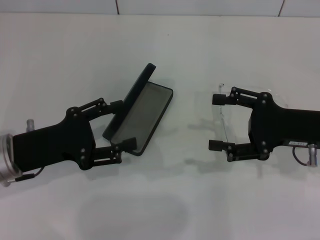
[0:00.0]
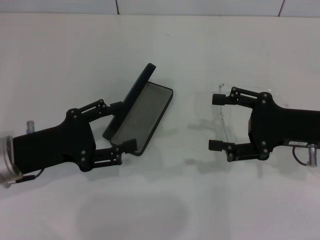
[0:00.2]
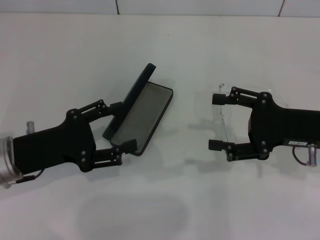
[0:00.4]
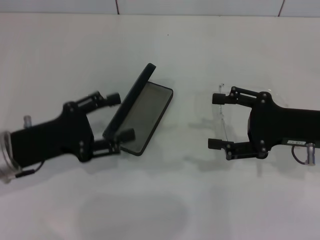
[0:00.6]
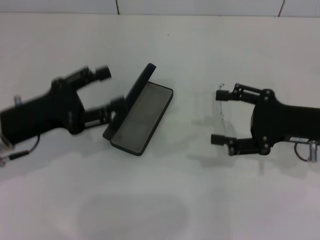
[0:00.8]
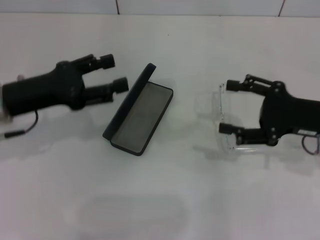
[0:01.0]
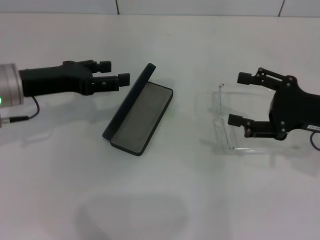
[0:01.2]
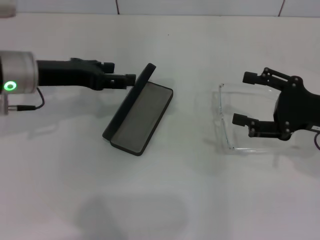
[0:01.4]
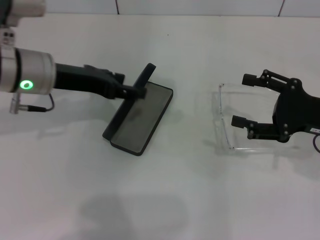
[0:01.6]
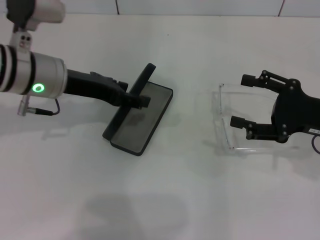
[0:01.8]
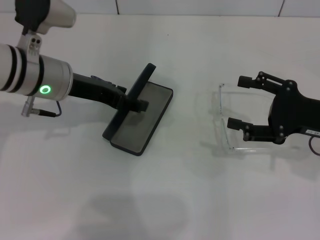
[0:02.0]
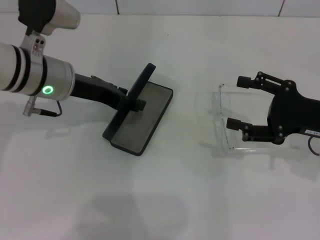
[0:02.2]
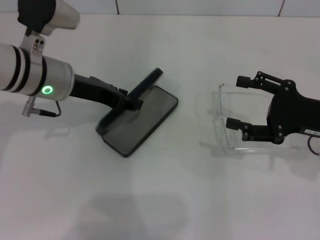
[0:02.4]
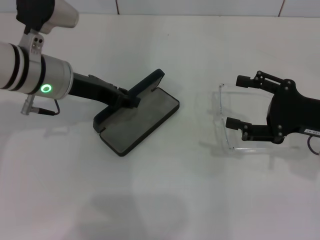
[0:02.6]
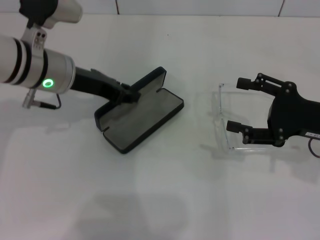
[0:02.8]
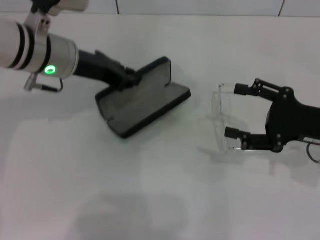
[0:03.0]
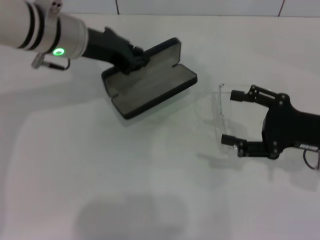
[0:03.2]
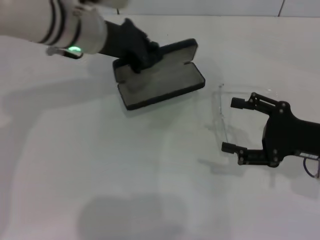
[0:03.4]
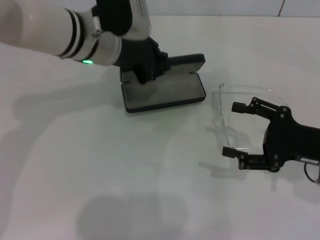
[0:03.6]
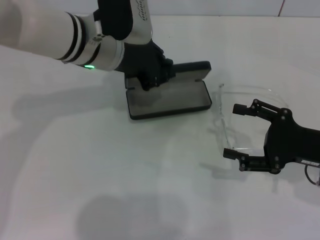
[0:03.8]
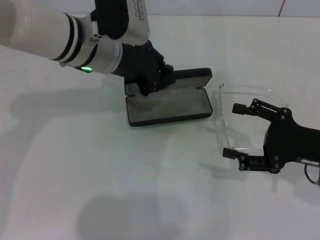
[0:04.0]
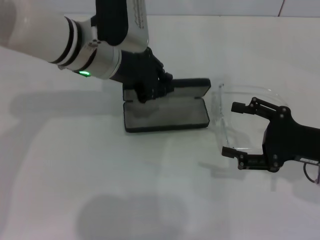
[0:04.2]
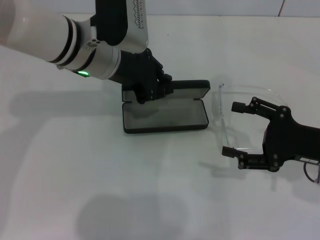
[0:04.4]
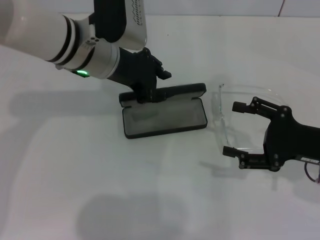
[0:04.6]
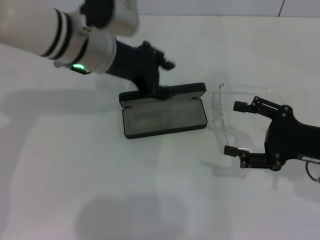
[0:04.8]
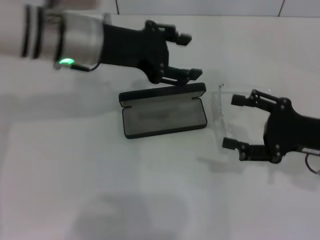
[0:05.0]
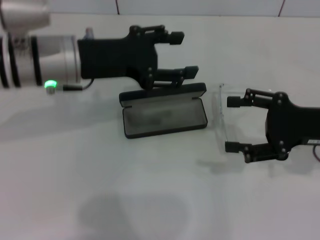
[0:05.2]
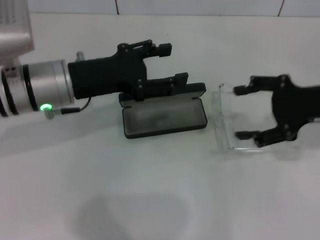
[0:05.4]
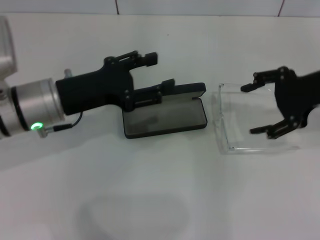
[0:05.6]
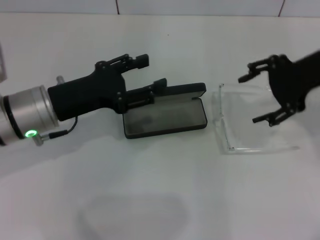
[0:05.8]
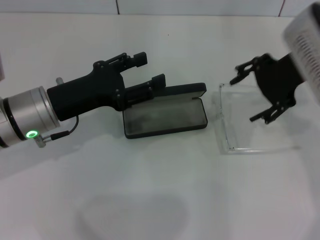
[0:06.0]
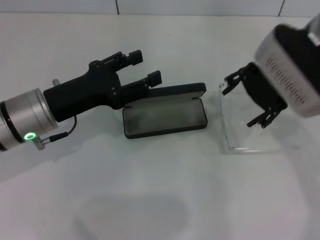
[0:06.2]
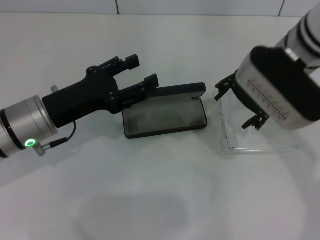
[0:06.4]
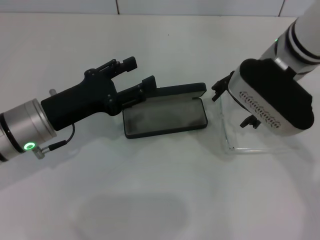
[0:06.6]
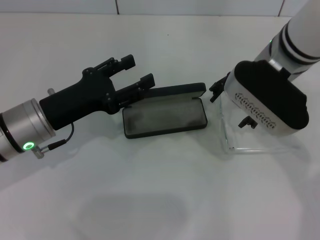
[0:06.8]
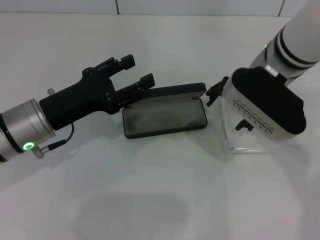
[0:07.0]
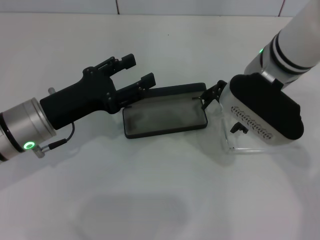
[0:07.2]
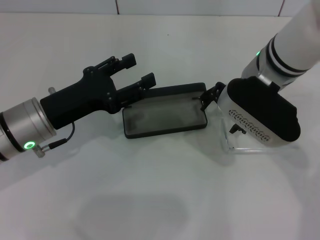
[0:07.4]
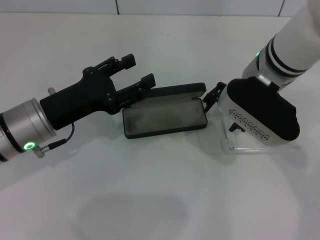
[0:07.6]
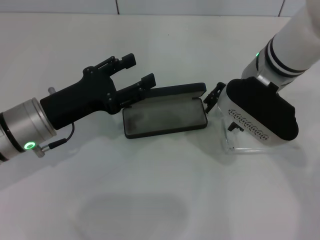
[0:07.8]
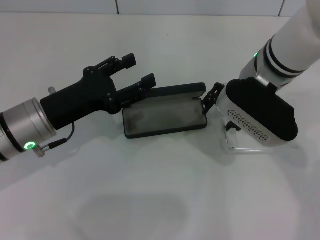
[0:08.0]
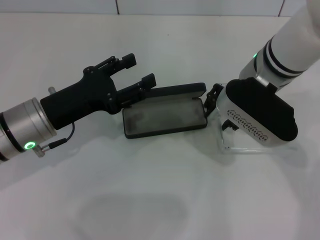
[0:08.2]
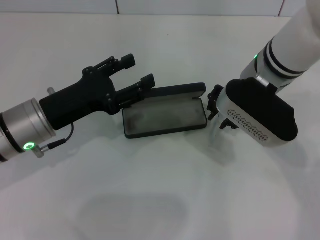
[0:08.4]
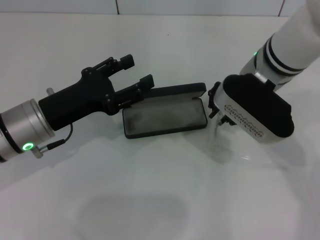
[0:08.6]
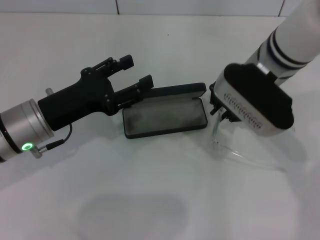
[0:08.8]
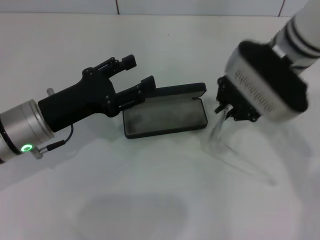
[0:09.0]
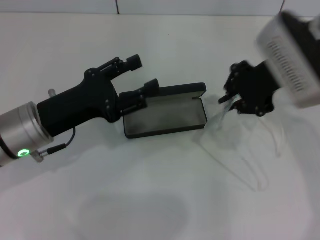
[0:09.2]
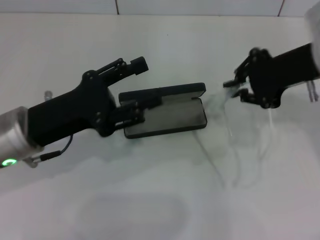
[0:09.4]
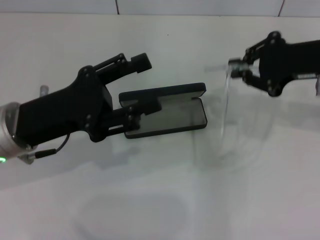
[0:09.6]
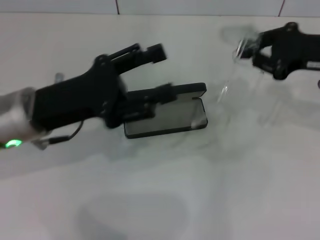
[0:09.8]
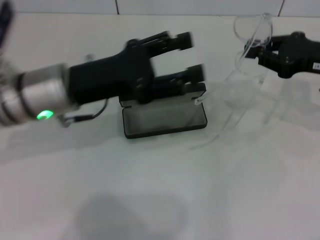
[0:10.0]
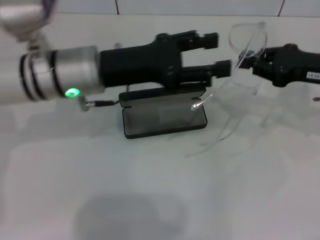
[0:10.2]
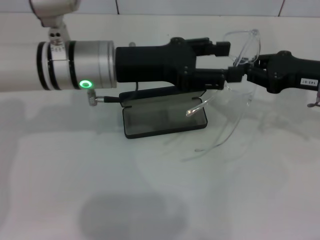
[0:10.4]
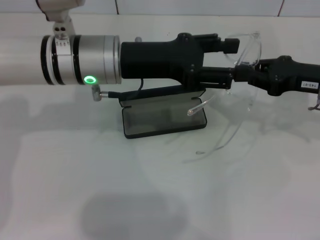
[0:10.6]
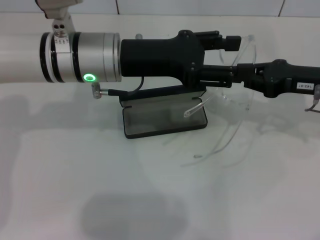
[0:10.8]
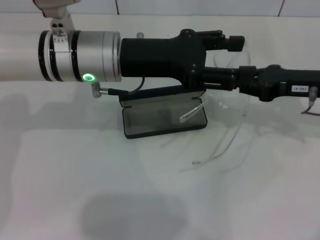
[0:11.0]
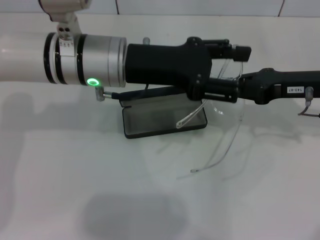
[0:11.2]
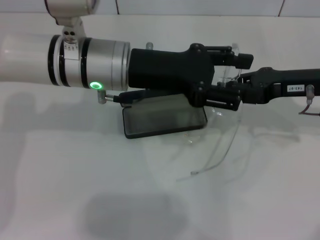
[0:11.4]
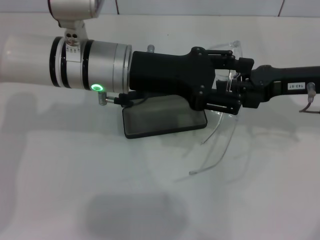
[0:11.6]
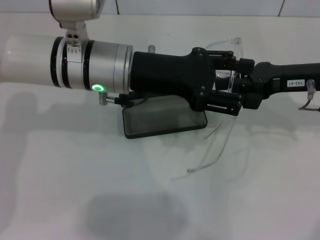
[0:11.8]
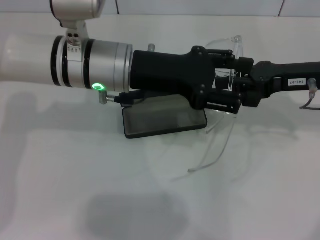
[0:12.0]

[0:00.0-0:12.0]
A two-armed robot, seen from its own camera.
Step, 0:00.0 to 0:02.8: Grab the glasses case with your left hand.
Step, 0:03.0 to 0:04.6: Place the glasses case in the center of the table with your left hand.
Step, 0:04.8 to 0:08.6: Grab the eyeglass frame with your right hand.
0:00.0 to 0:01.6: The left gripper shifts approximately 15 cm forward and upward.
0:01.6 to 0:03.0: The left gripper closes up.
0:03.0 to 0:04.4: The left gripper is displaced to the right by some 5 cm.
0:04.4 to 0:06.0: The right gripper goes approximately 20 cm upward, forward and to the left. The left gripper heads to the left, backward and downward, covering about 15 cm, and opens.
0:06.0 to 0:07.6: The right gripper goes about 10 cm to the left and downward.
0:07.6 to 0:09.0: The right gripper closes up.
0:09.0 to 0:10.4: The right gripper shifts approximately 15 cm to the right. The left gripper travels to the right, forward and upward by some 15 cm.
0:10.4 to 0:12.0: There are only small adjustments of the grippers.

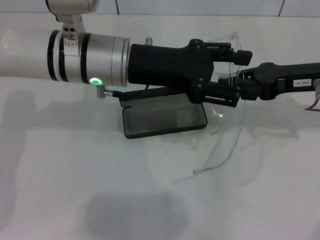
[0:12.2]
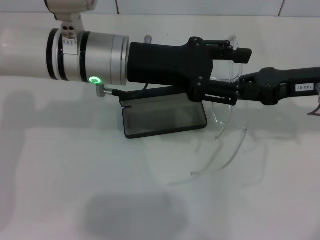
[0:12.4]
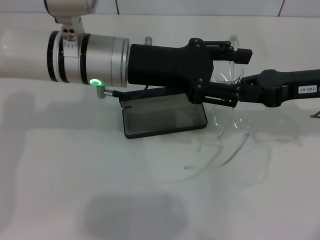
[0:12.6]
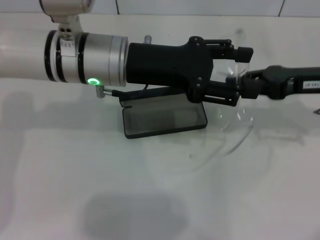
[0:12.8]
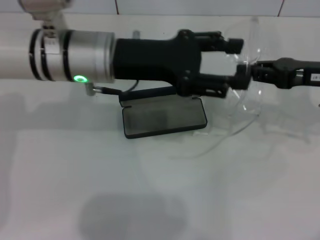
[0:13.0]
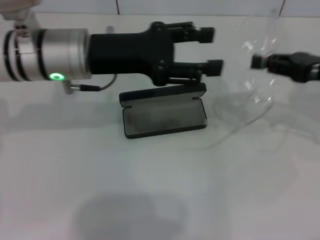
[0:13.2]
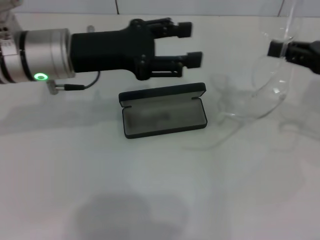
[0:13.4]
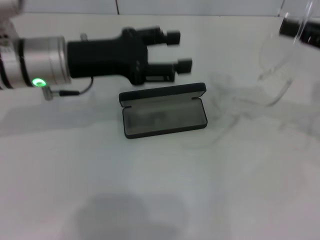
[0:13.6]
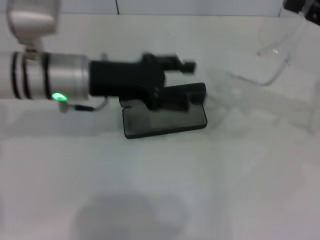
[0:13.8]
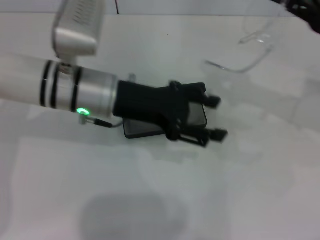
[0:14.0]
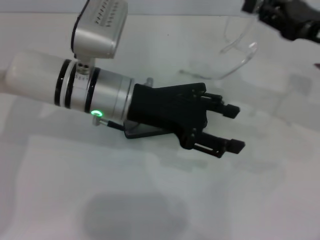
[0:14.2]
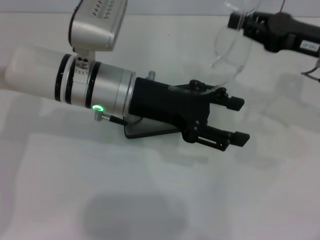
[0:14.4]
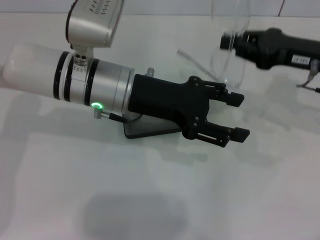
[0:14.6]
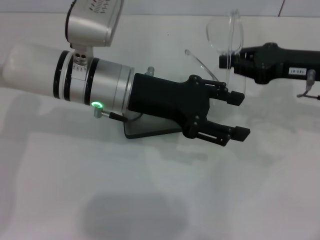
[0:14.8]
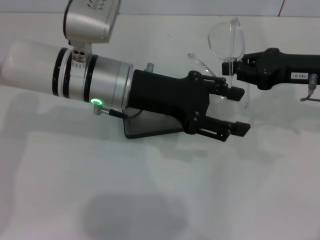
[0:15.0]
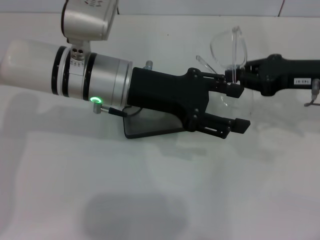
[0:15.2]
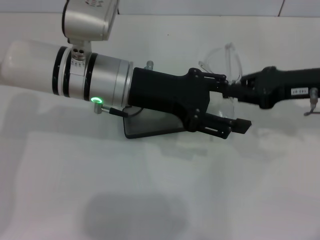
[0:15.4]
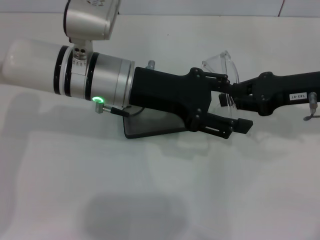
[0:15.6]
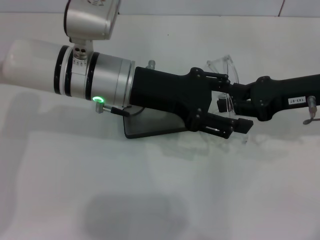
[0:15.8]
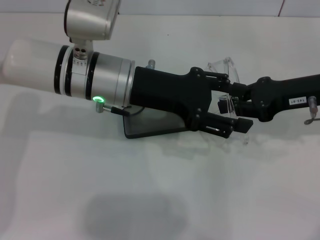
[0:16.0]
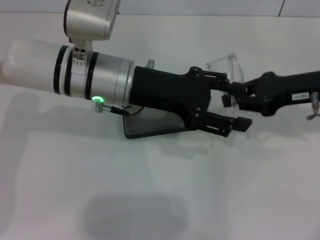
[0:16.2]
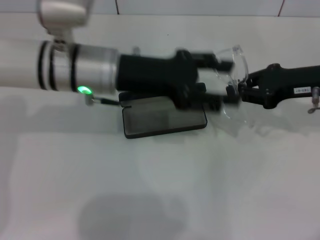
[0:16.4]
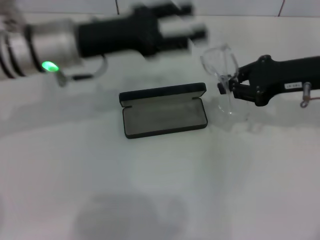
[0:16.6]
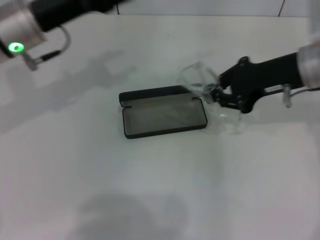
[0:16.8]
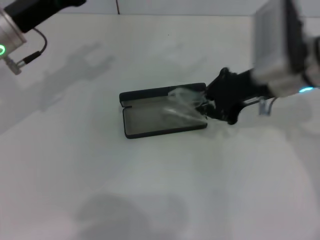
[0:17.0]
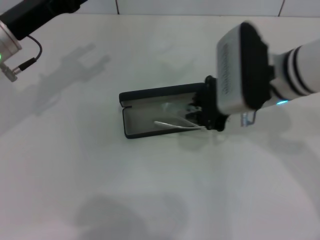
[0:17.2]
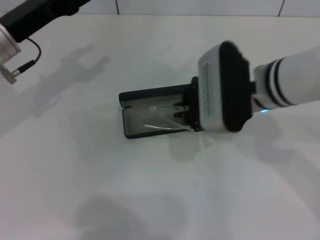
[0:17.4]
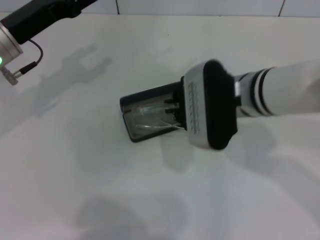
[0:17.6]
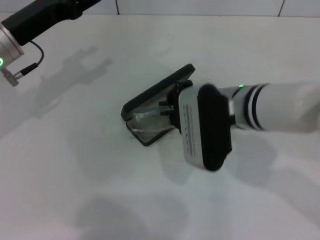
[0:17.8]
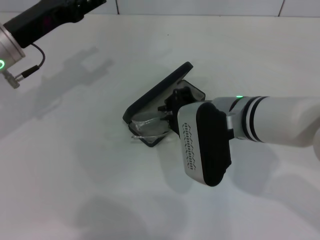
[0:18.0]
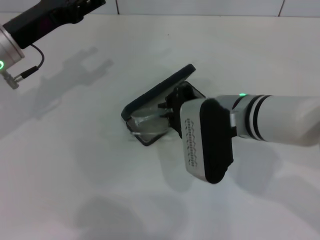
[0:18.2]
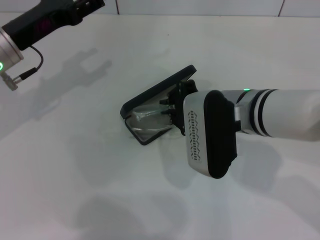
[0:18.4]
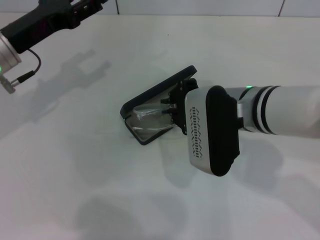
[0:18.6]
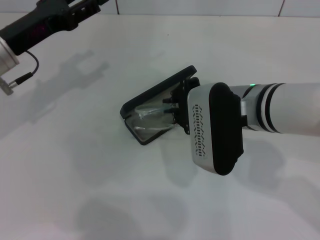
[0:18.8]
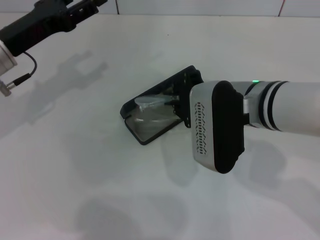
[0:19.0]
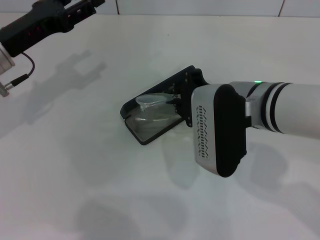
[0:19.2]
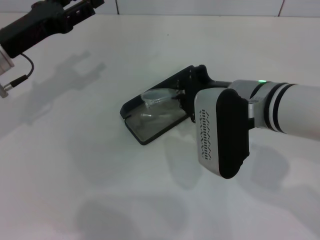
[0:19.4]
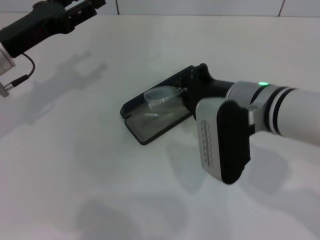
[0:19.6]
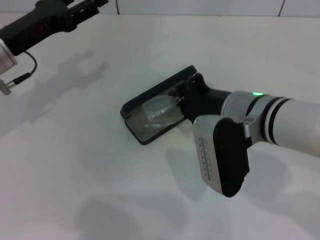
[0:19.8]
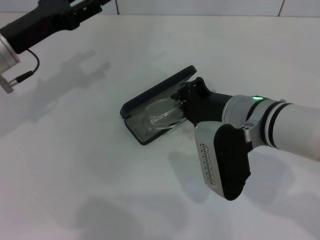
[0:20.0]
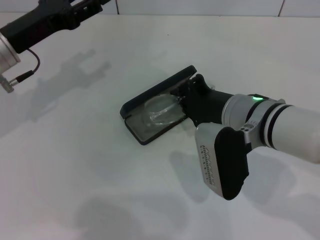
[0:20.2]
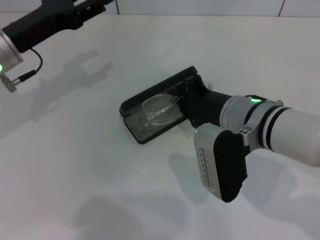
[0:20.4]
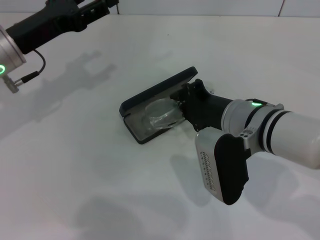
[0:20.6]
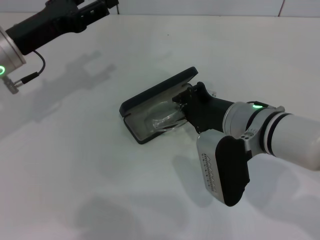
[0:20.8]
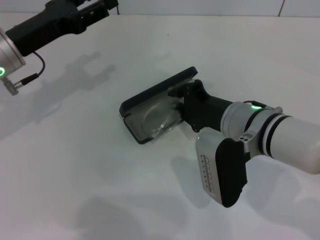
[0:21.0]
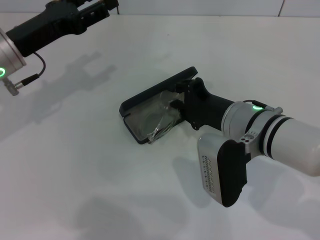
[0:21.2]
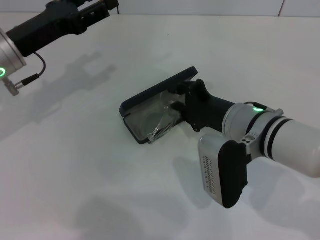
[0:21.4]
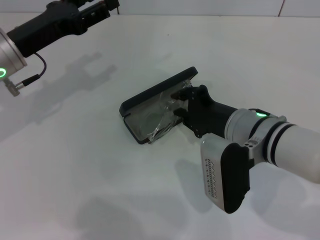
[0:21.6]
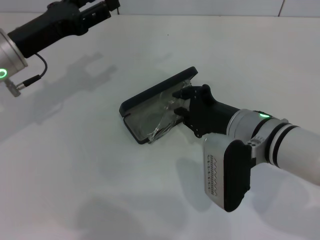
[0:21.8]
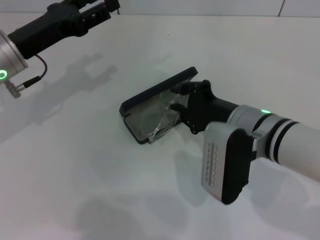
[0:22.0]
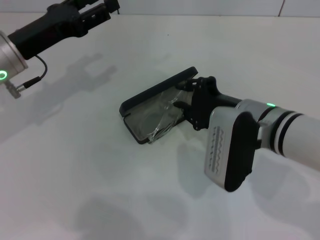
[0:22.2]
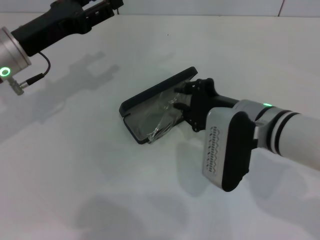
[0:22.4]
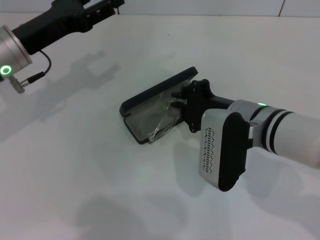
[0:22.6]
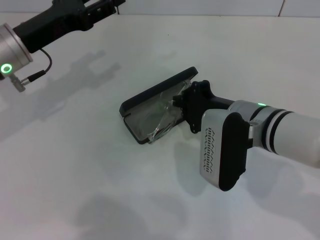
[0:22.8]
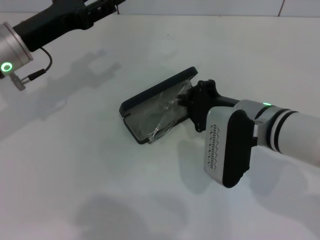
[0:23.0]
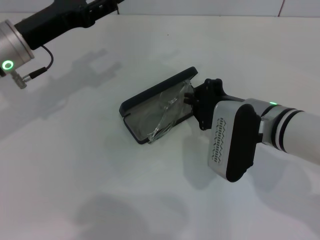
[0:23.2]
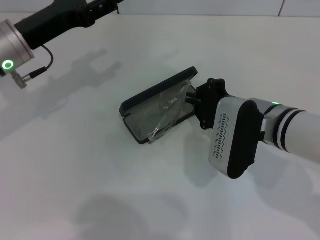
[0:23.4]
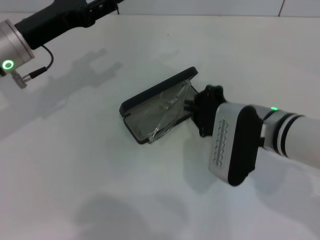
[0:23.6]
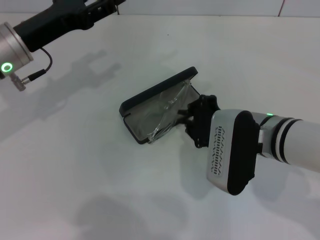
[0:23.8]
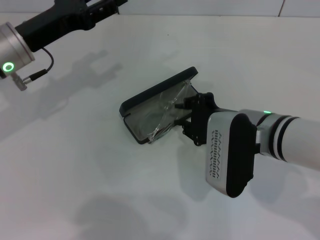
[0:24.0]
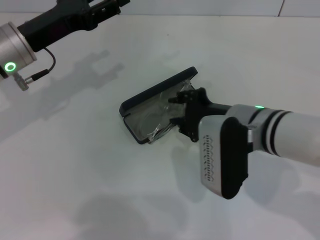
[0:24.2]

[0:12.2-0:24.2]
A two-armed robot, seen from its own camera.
Step, 0:12.2 to 0:16.0: Lift the glasses with your right hand.
0:12.2 to 0:13.8: The left gripper travels to the left by approximately 5 cm, while the right gripper goes approximately 5 cm to the right.
0:13.8 to 0:15.2: The right gripper changes place by some 5 cm. The left gripper heads to the right, covering about 5 cm.
0:15.2 to 0:16.6: The left gripper travels to the left by roughly 5 cm.
0:16.6 to 0:18.2: The left gripper is displaced to the left by approximately 10 cm, while the right gripper goes approximately 15 cm to the left.
0:18.2 to 0:19.8: There are only small adjustments of the grippers.
0:19.8 to 0:22.6: The grippers make only small movements.
0:22.6 to 0:24.2: The grippers move only a little.
